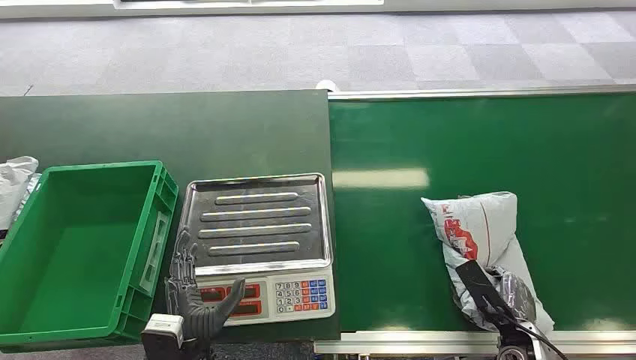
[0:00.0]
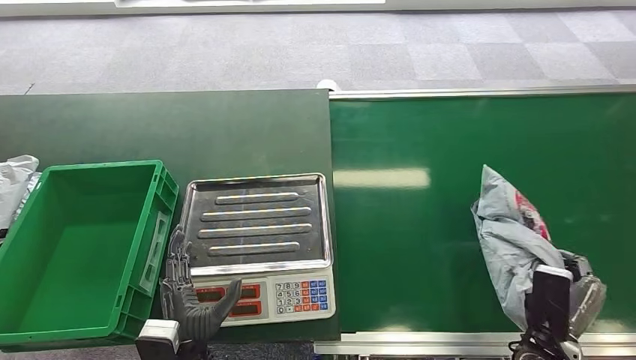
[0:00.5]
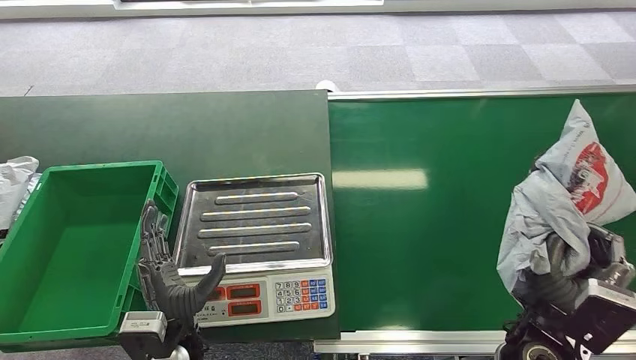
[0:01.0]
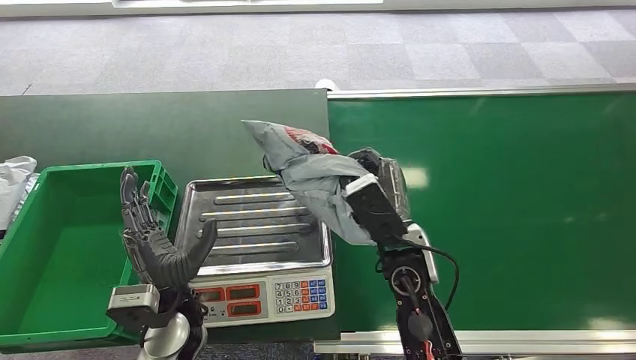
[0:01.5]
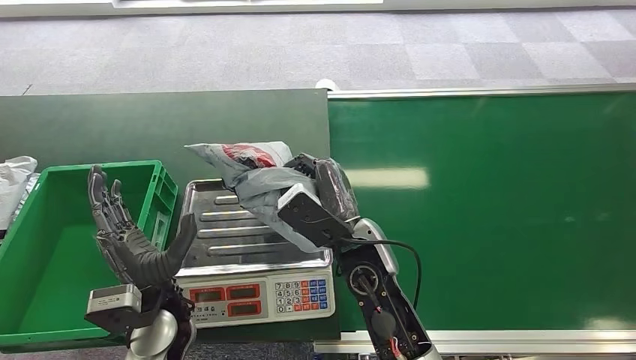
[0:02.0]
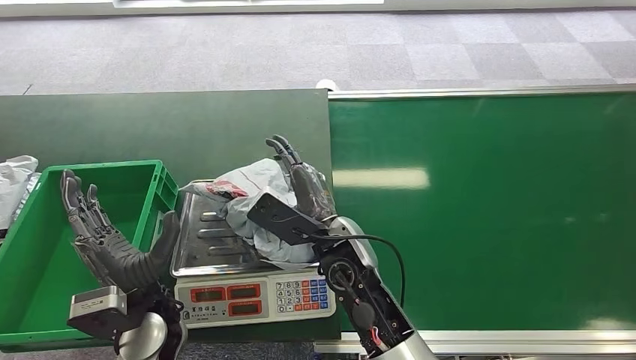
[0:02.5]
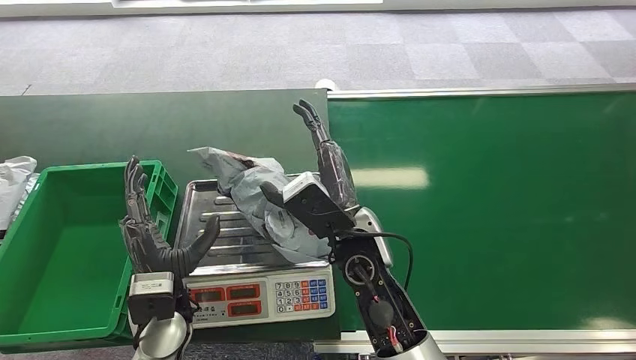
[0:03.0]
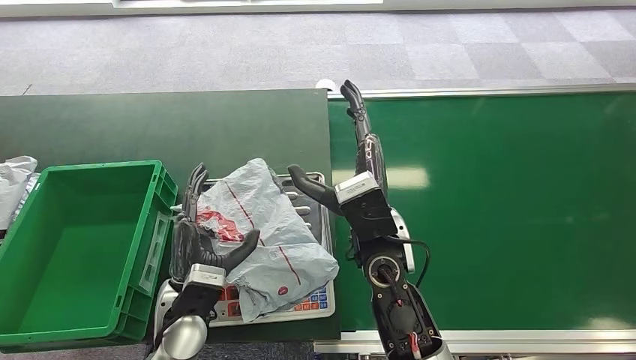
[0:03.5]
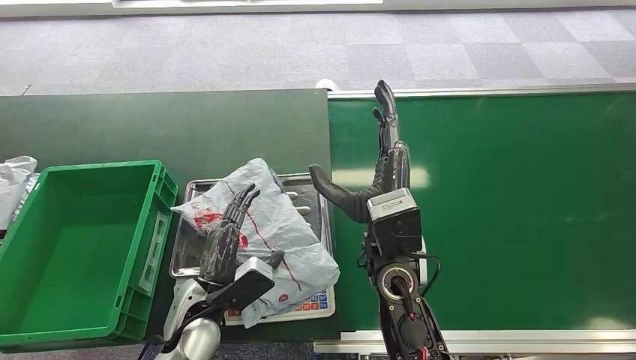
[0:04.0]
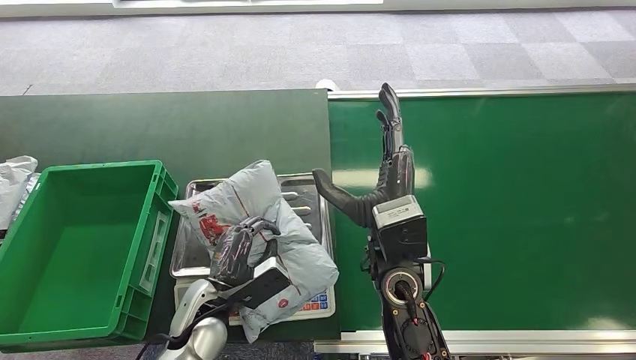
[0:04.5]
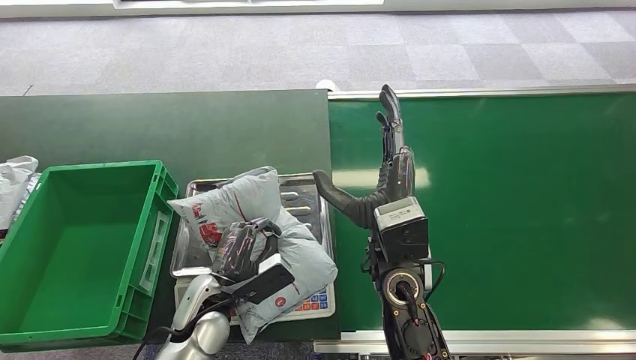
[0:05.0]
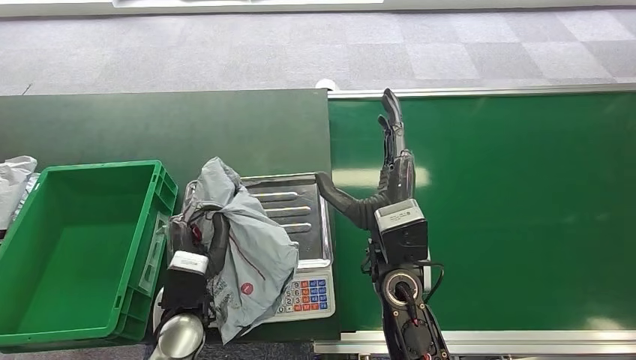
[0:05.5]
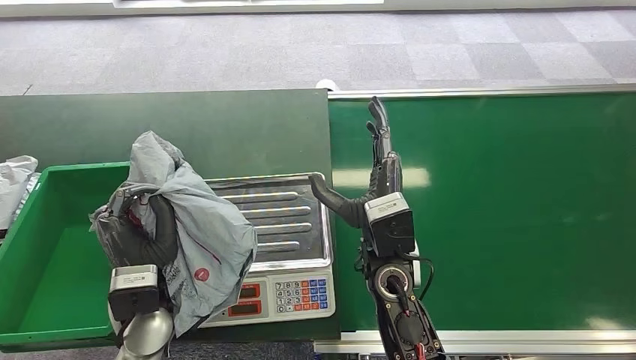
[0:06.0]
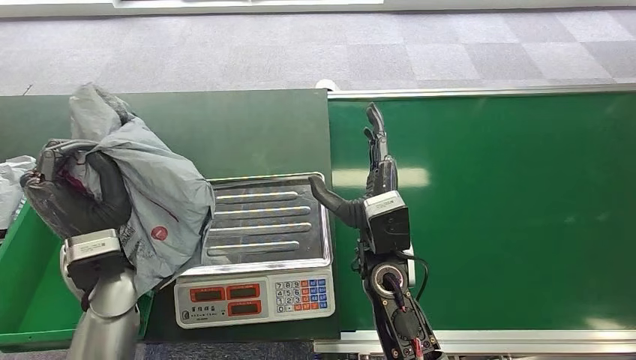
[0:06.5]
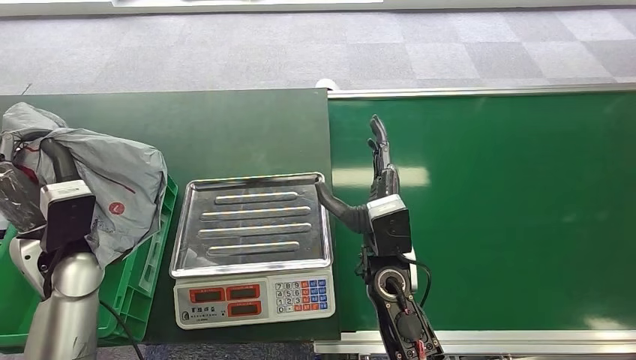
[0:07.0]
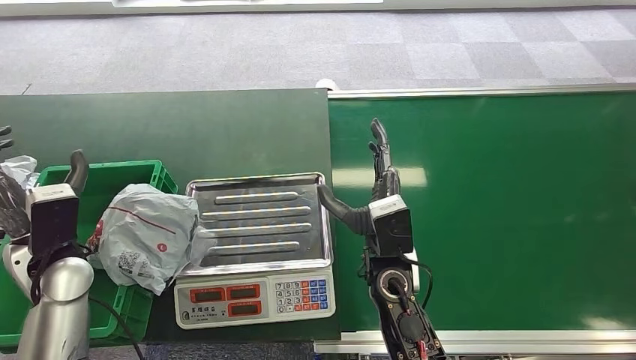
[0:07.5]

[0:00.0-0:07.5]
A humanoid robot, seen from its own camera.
Step, 0:00.0 to 0:01.0: Pick up the package from the conveyor belt.
Step, 0:01.5 to 0:02.5: Place the package onto the inbound machine.
Step, 0:05.5 to 0:06.0: Pick up the package from the inbound machine.
Step, 0:07.0 to 0:07.5: Place the package into the parcel locker.
0:02.0 to 0:04.0: The left hand shifts by about 5 cm.
0:05.5 to 0:07.5: The left hand goes some 20 cm to the left and upward, while the right hand moves downward, approximately 5 cm.

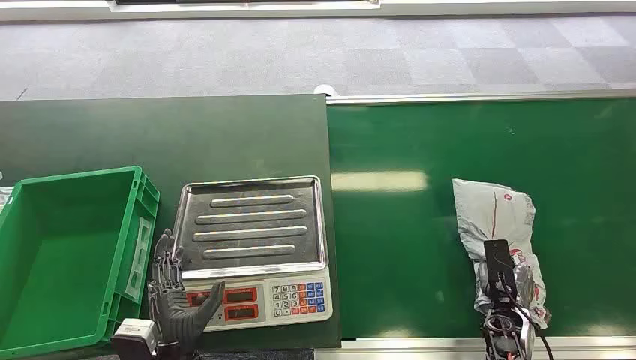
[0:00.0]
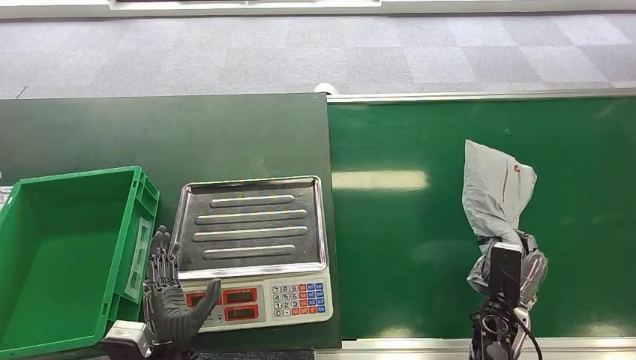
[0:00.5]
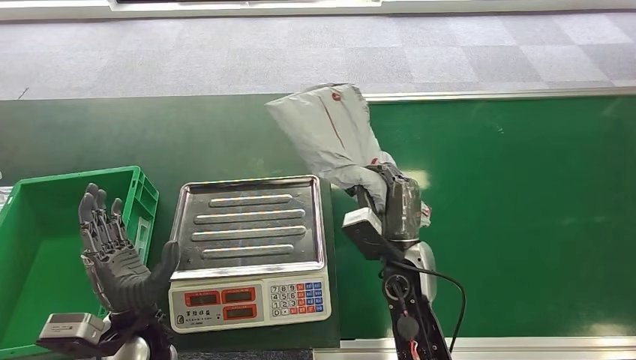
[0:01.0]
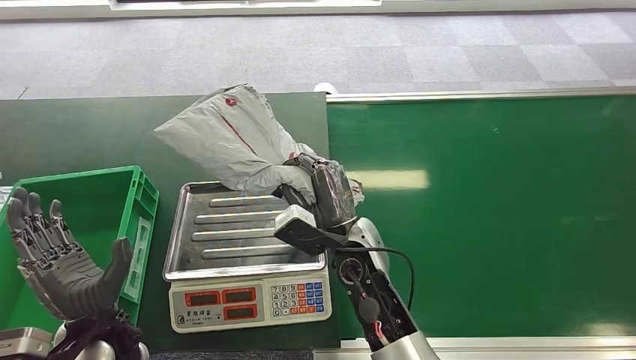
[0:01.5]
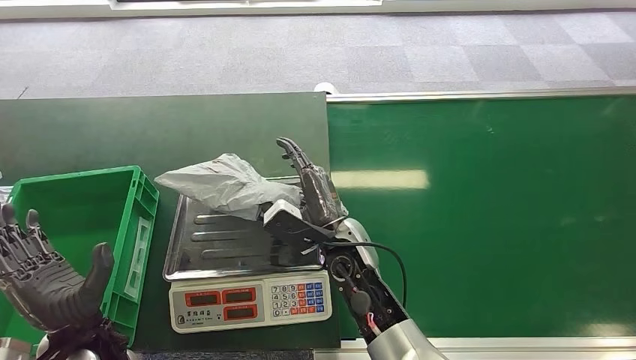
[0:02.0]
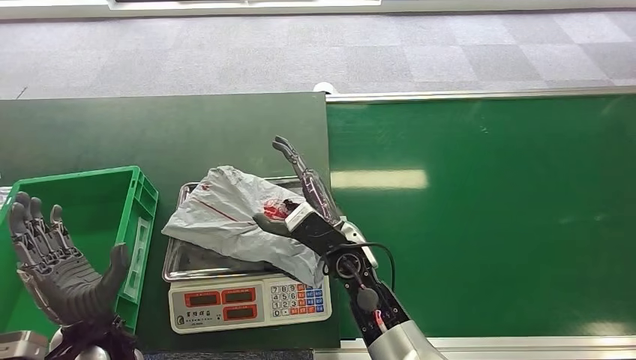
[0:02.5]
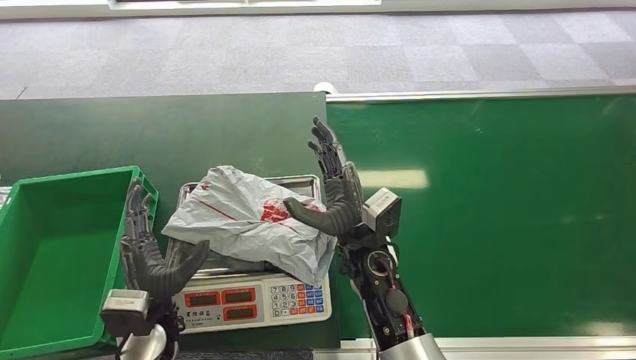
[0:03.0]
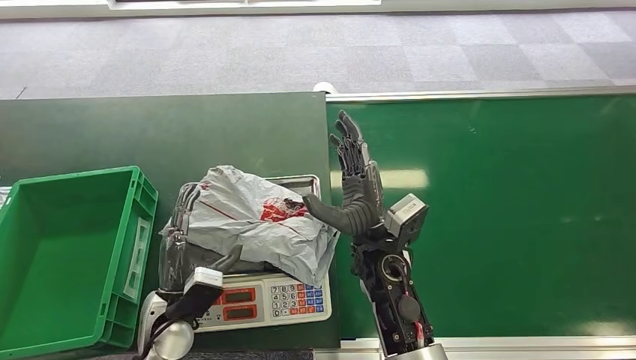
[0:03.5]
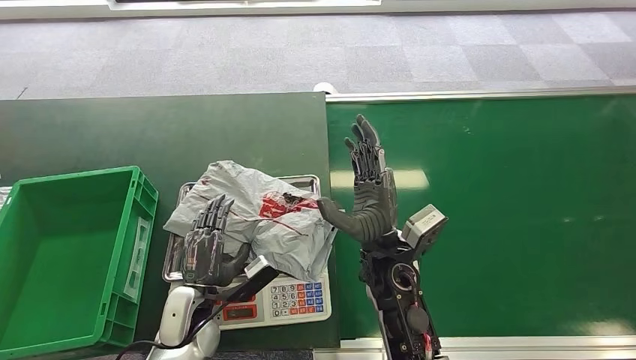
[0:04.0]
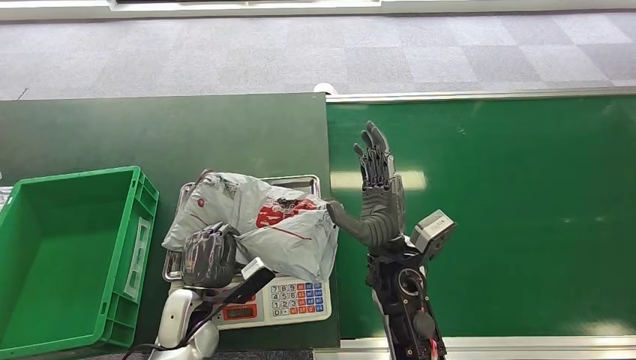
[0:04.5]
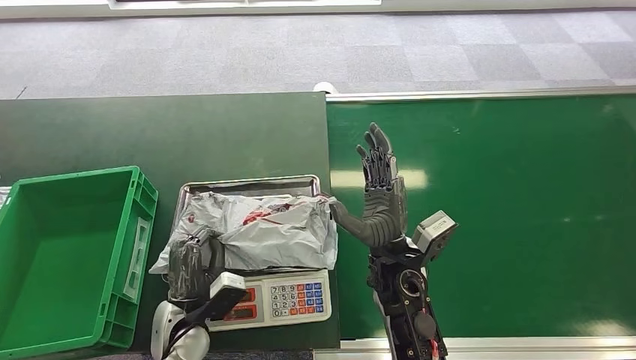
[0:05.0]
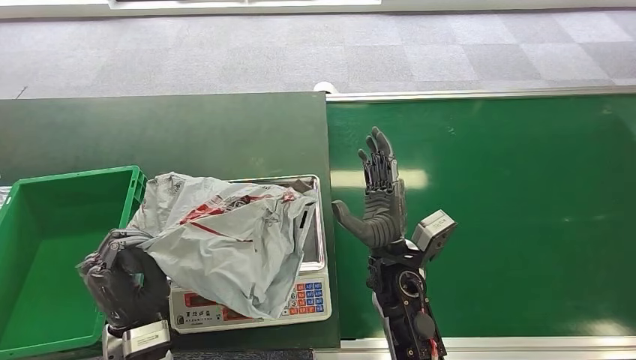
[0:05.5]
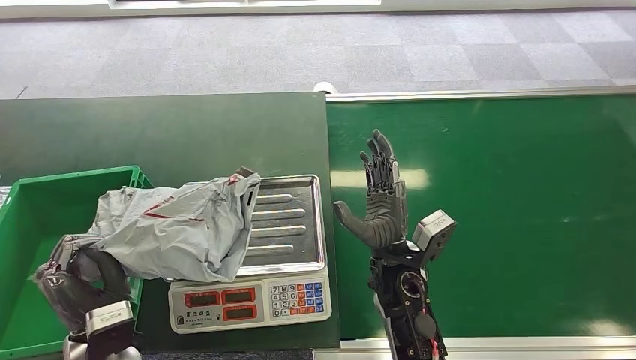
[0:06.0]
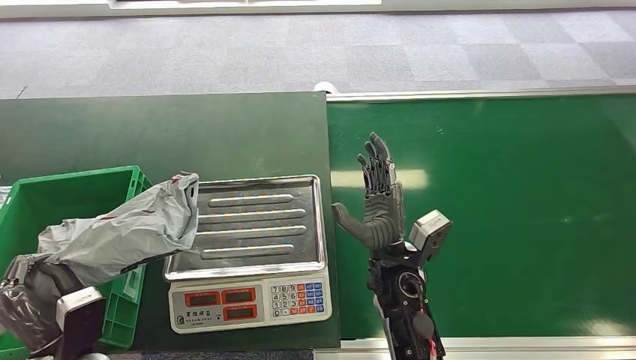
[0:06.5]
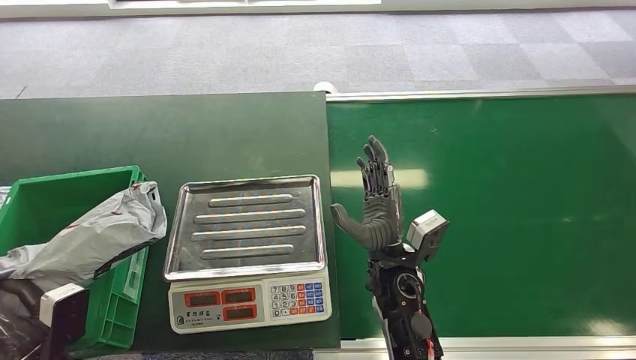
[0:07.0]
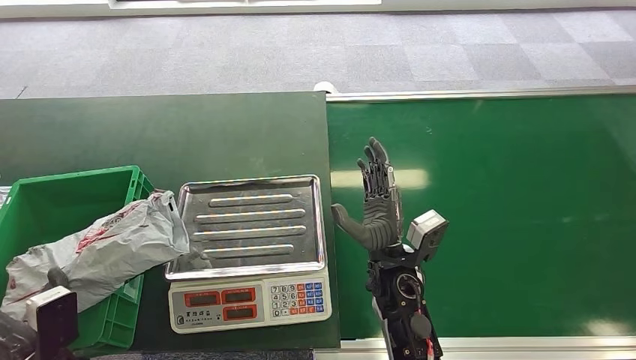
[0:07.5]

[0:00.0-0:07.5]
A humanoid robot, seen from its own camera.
Step, 0:00.0 to 0:01.0: Pick up the package from the conveyor belt.
Step, 0:01.5 to 0:02.5: Place the package onto the inbound machine.
Step, 0:04.5 to 0:05.5: Pick up the package from the inbound machine.
Step, 0:07.0 to 0:07.5: Place the package into the parcel locker.
0:02.0 to 0:04.0: The left hand moves to the right, downward and forward, approximately 15 cm.
0:04.0 to 0:05.5: The left hand goes approximately 10 cm upward and backward.
0:05.5 to 0:07.5: The left hand shifts roughly 15 cm to the left.

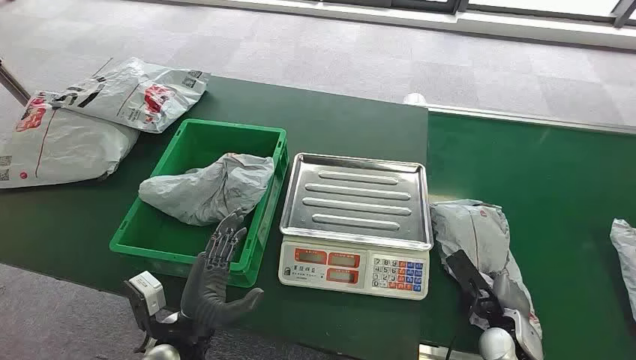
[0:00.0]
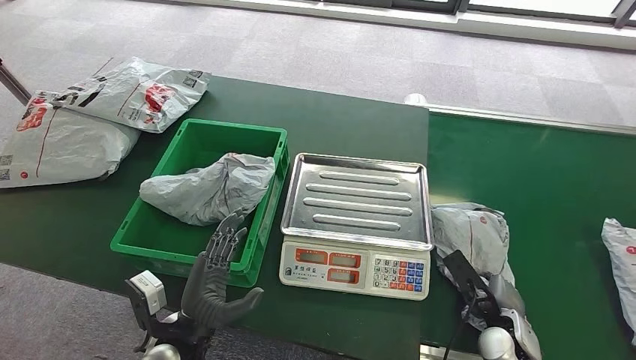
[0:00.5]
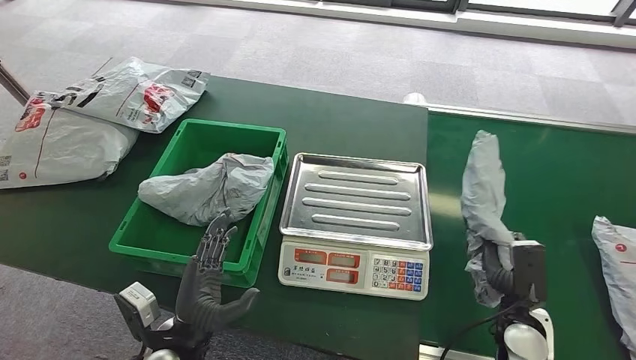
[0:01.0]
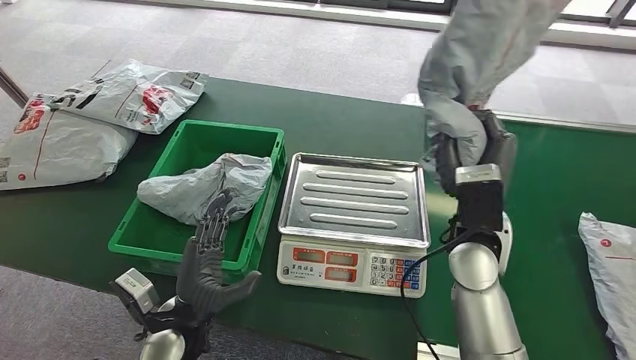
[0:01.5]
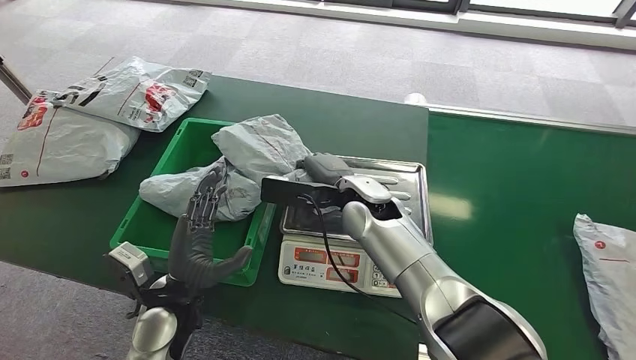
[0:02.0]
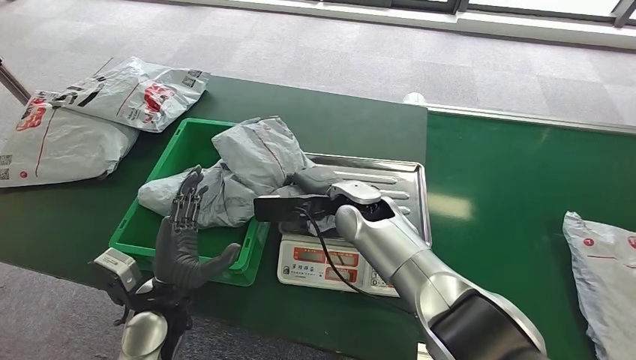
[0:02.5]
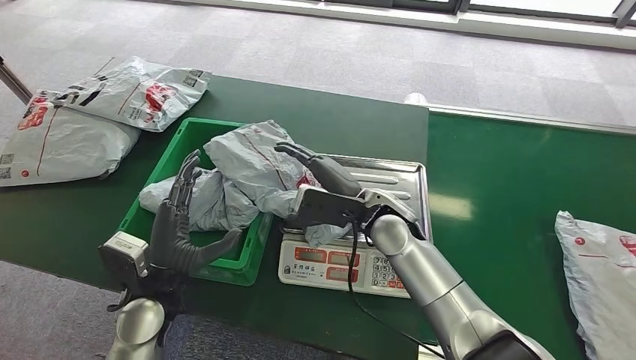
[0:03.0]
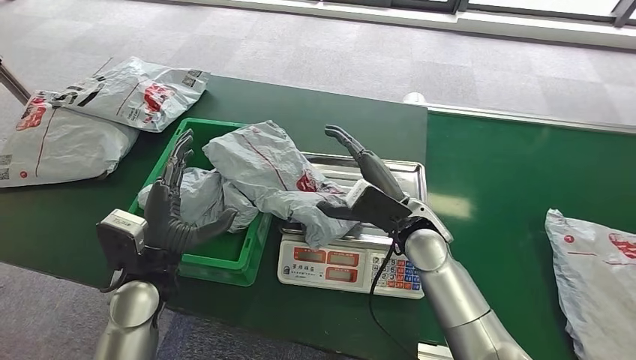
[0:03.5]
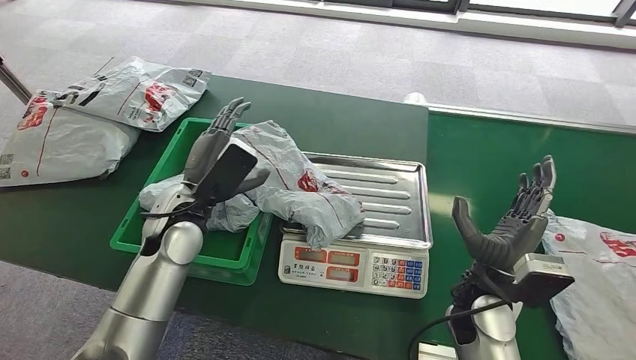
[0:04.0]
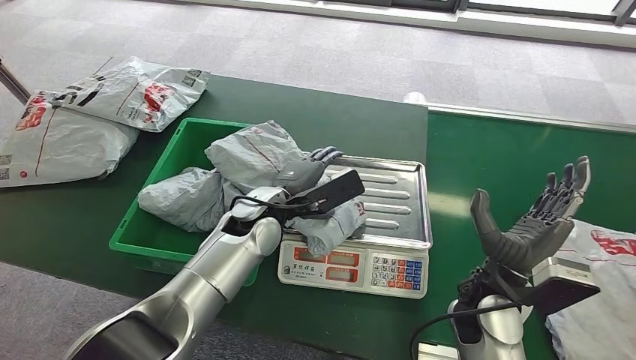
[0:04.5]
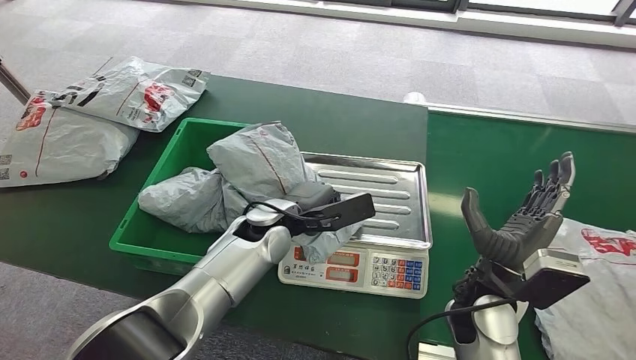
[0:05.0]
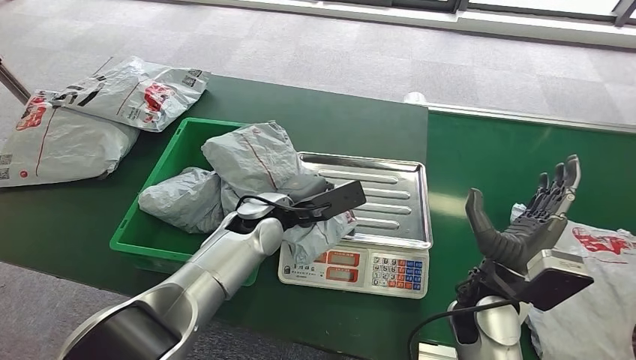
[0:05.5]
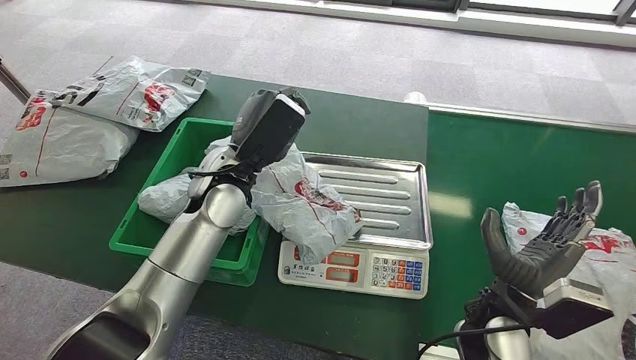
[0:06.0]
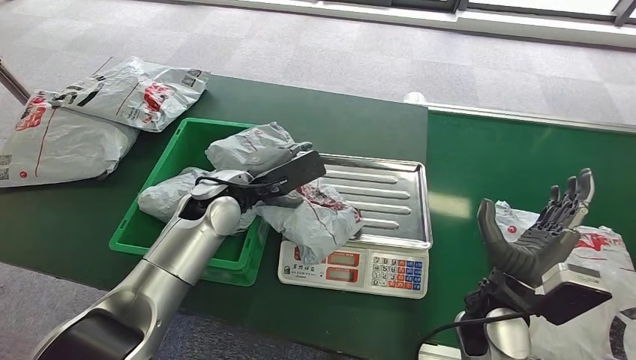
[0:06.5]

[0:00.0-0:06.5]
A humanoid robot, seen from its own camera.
Step, 0:00.0 to 0:01.0: Pick up the package from the conveyor belt.
Step, 0:01.5 to 0:02.5: Place the package onto the inbound machine.
0:04.5 to 0:06.5: The left hand moves to the left, approximately 5 cm, and travels upward and back again, some 5 cm each way.
